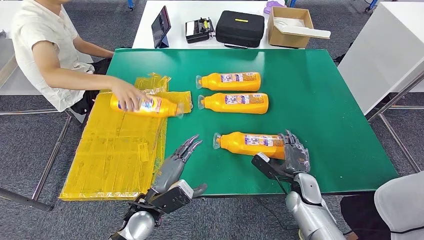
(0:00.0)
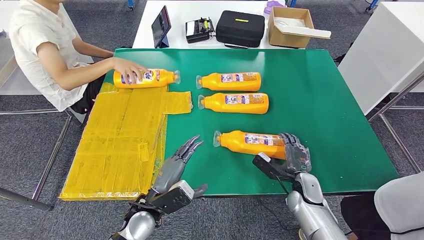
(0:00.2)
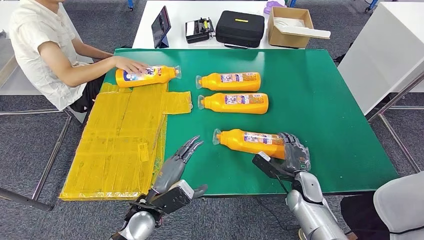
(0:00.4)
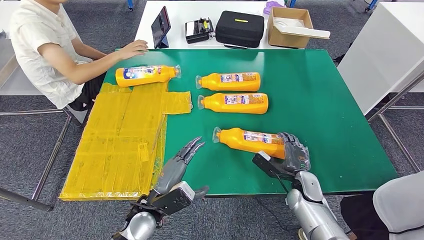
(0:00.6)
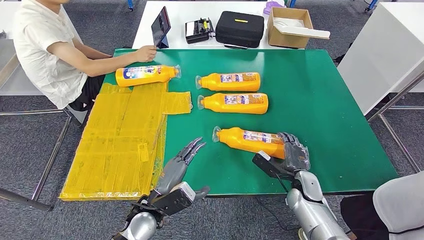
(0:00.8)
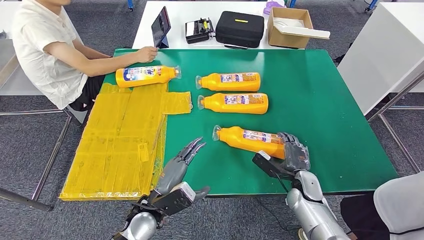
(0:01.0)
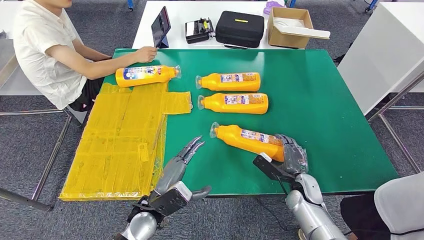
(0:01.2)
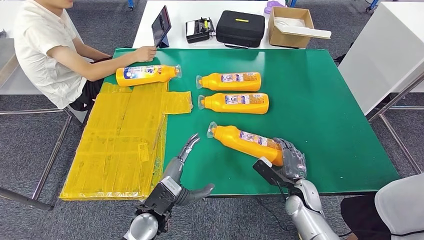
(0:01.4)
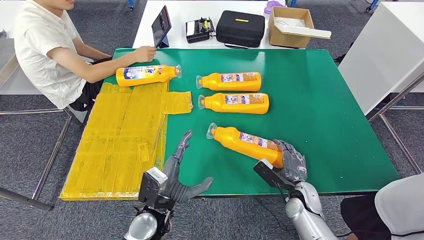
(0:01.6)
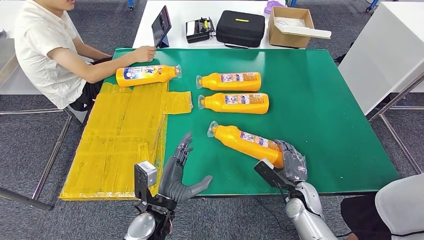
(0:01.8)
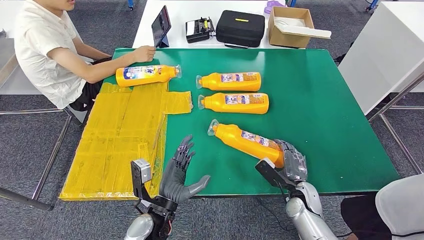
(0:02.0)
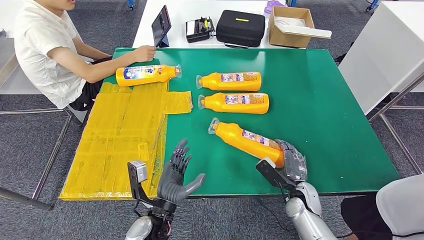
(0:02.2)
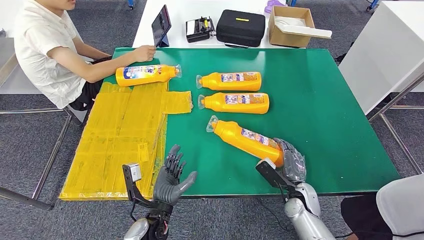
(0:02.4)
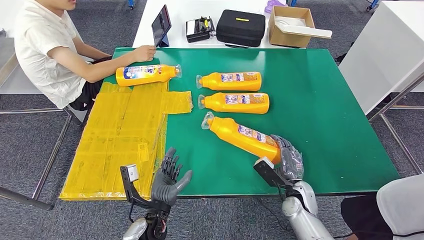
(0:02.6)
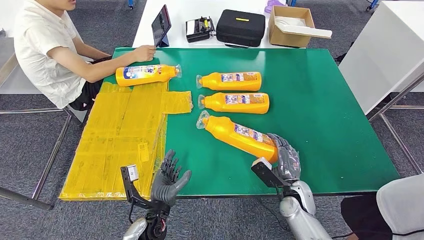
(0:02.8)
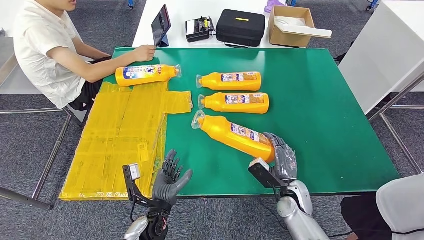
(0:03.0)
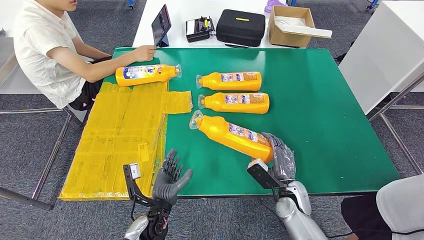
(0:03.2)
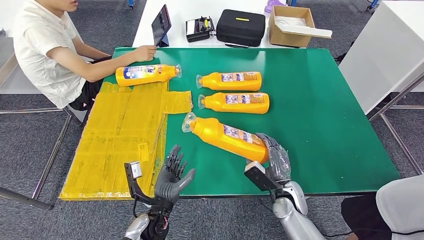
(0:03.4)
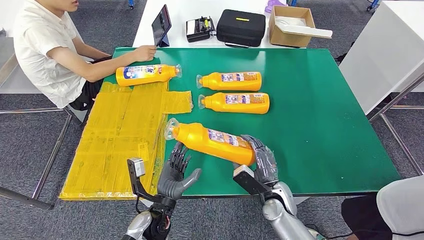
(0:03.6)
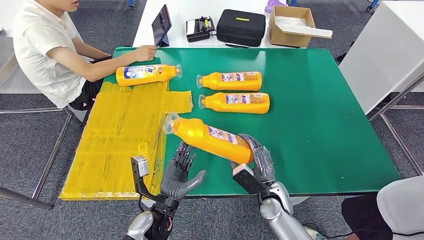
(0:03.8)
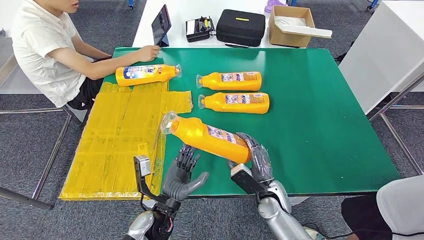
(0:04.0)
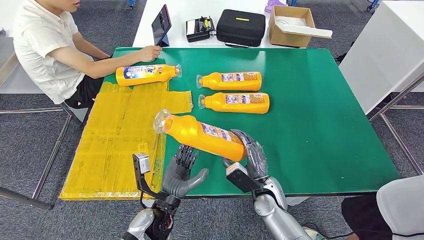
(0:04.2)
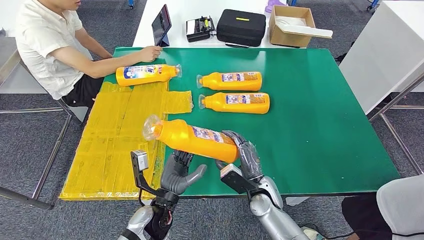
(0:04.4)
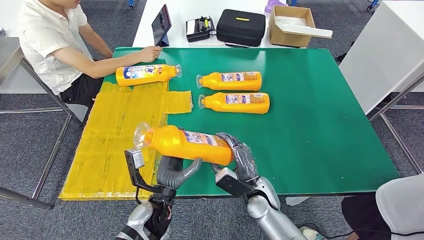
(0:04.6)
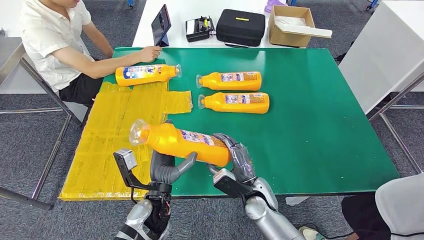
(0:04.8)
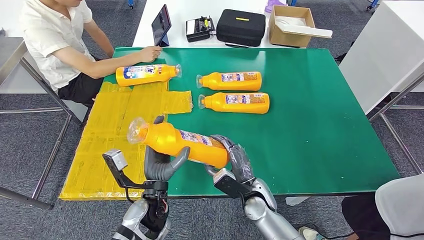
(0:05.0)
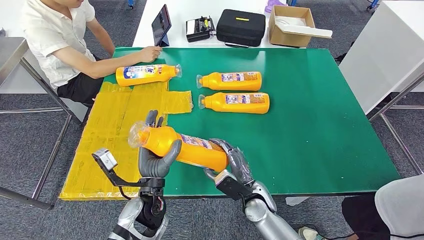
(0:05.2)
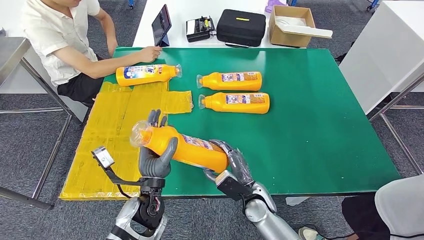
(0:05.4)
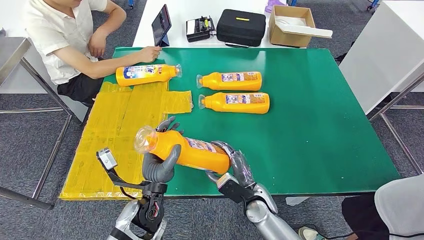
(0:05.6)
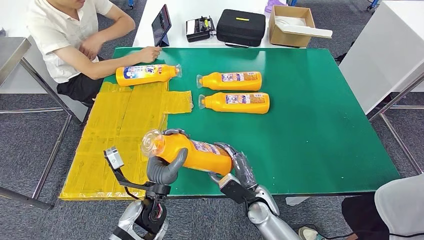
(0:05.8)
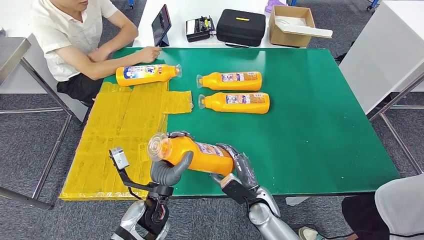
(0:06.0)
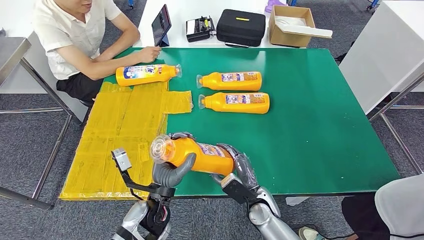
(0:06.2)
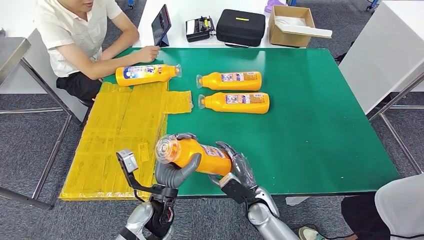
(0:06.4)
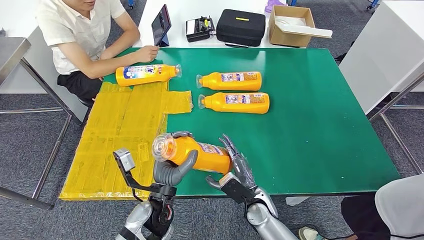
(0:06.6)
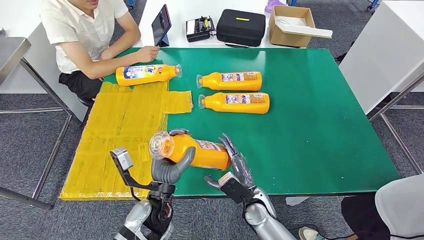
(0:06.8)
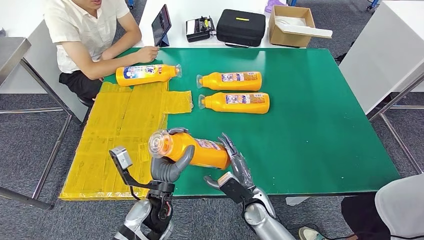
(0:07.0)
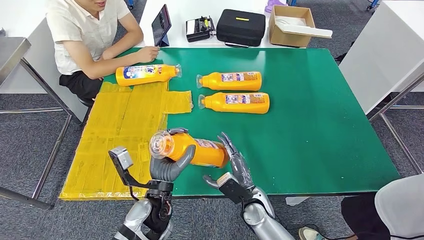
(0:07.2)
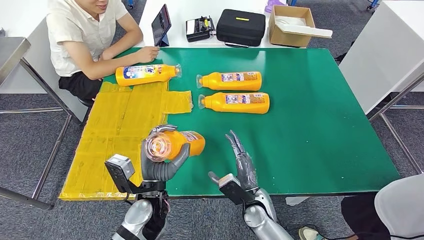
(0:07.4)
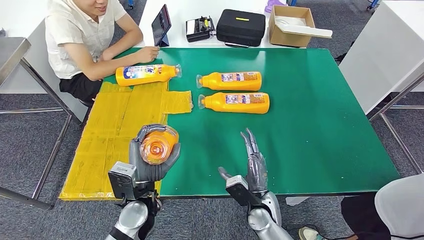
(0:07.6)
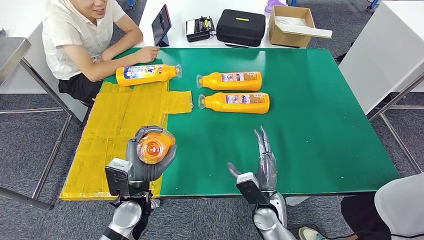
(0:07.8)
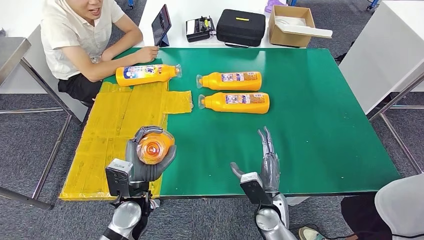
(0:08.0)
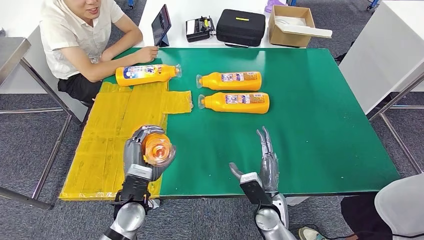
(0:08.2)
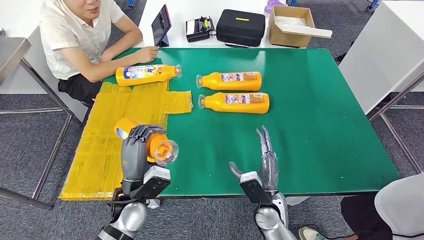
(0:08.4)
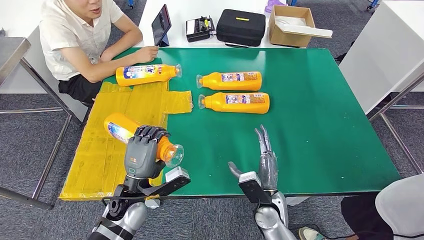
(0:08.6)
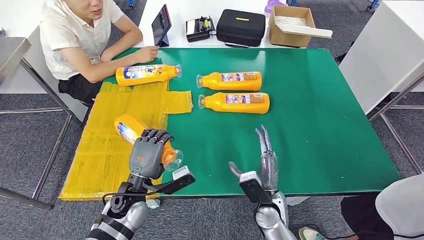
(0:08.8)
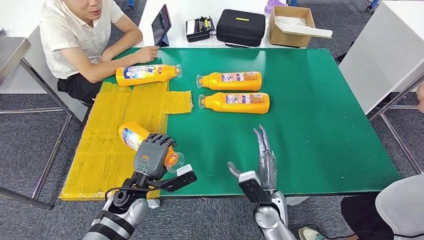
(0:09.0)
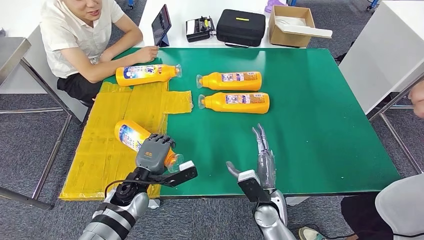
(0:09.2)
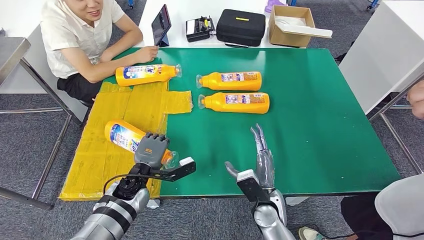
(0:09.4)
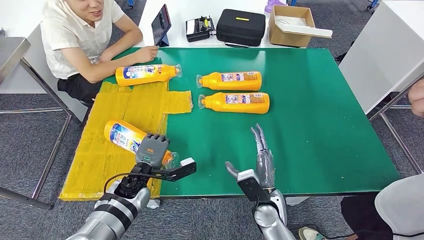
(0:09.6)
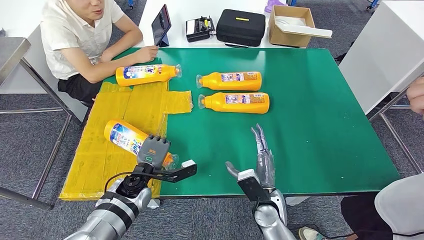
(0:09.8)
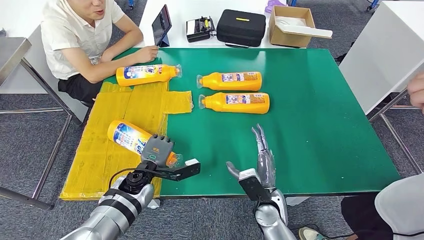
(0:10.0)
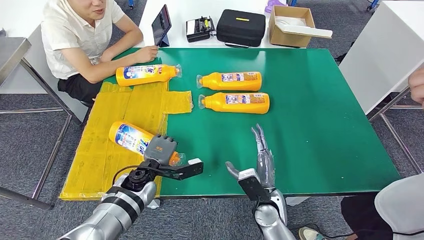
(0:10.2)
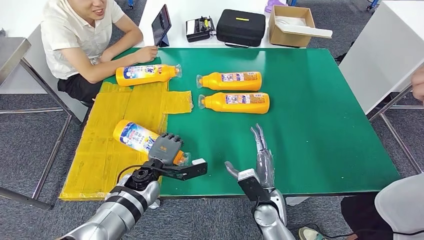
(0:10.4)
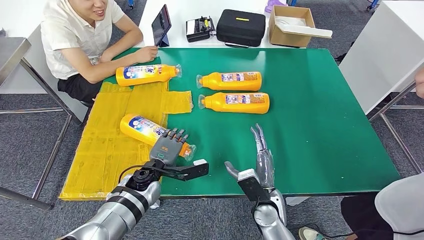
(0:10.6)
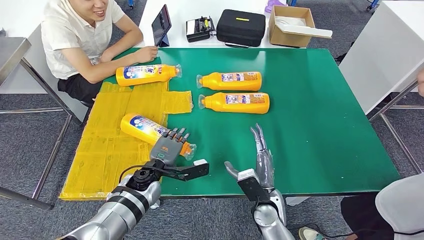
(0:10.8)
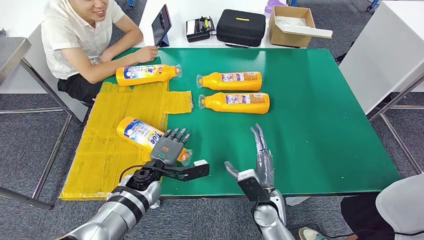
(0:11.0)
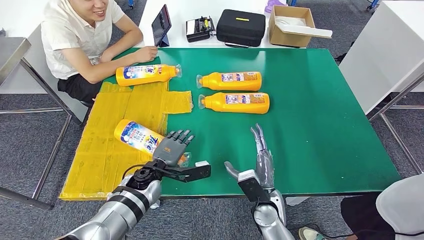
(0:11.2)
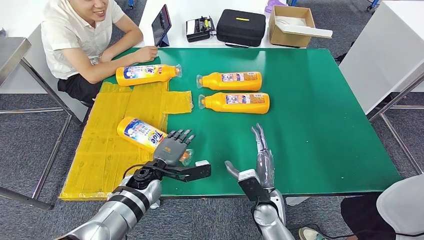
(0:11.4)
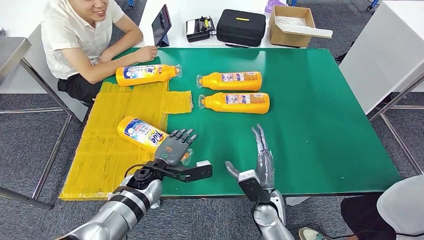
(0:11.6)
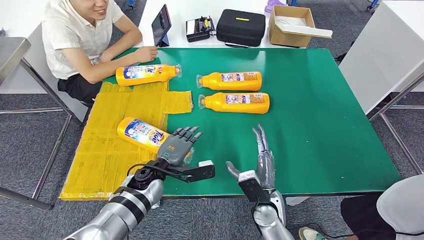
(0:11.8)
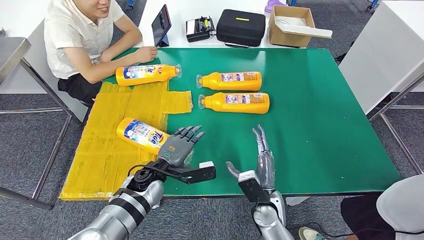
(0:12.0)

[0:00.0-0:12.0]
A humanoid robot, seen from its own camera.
Step, 0:00.0 to 0:05.0: Pick up the fast-moving consumer goods bottle from the table.
0:03.0 to 0:04.4: The right hand heads to the left, covering some 10 cm.
0:07.6 to 0:09.0: The left hand changes place by some 5 cm.
0:09.0 to 0:10.4: The left hand changes place by about 5 cm.
0:10.4 to 0:12.0: The hands move only a little.

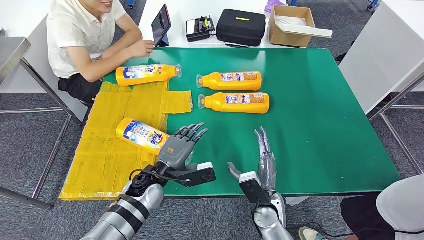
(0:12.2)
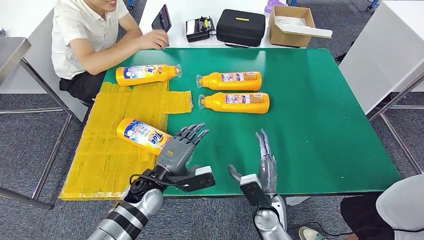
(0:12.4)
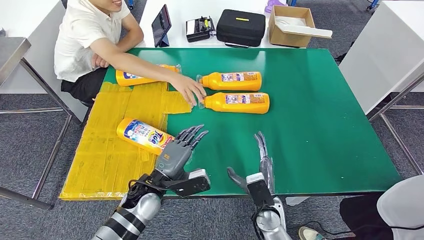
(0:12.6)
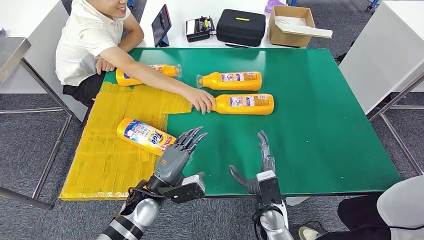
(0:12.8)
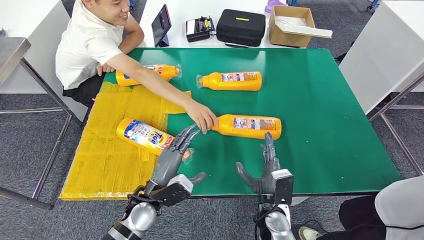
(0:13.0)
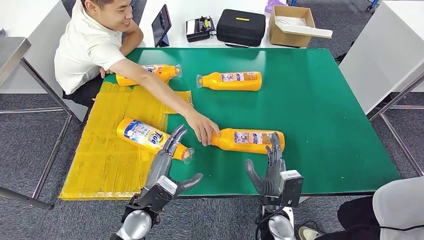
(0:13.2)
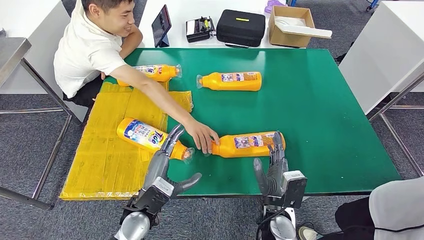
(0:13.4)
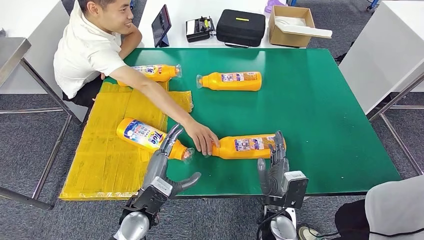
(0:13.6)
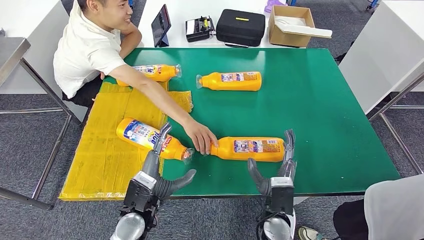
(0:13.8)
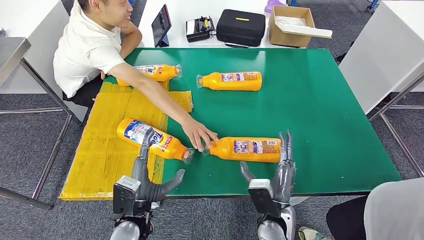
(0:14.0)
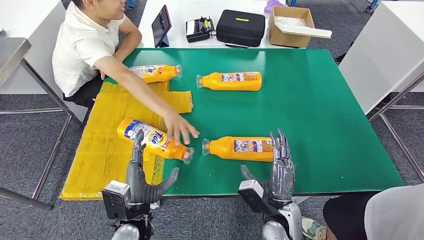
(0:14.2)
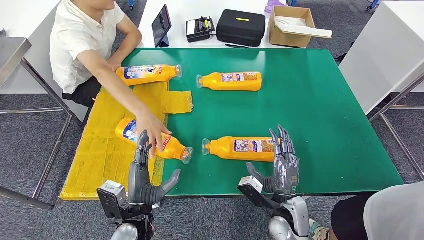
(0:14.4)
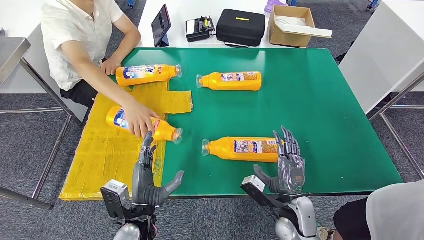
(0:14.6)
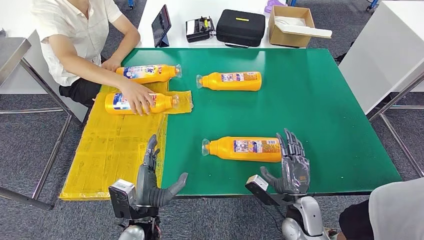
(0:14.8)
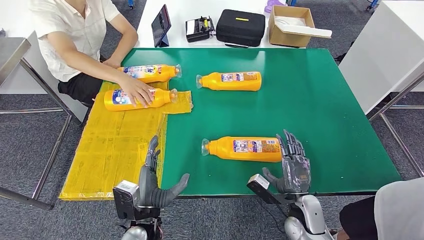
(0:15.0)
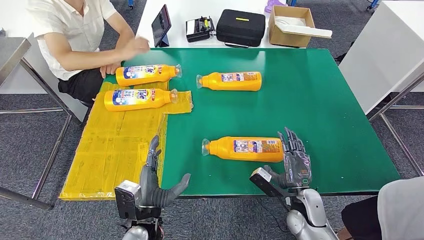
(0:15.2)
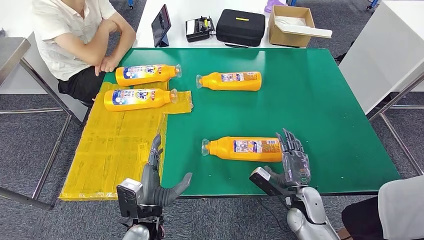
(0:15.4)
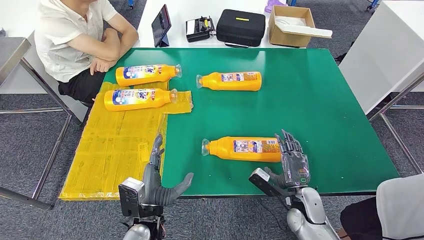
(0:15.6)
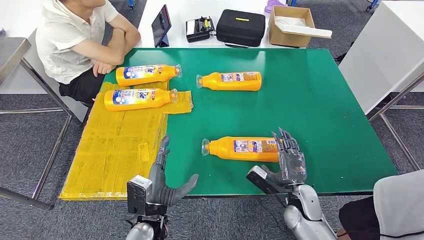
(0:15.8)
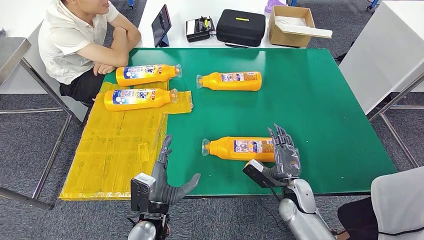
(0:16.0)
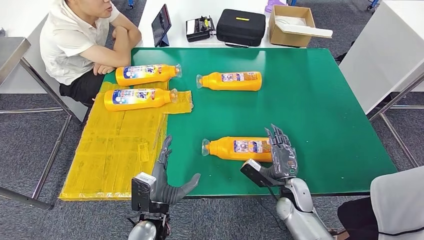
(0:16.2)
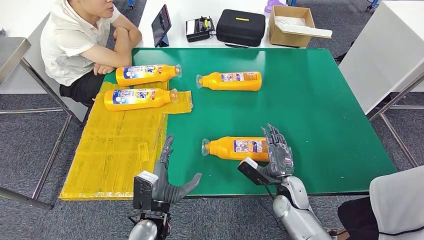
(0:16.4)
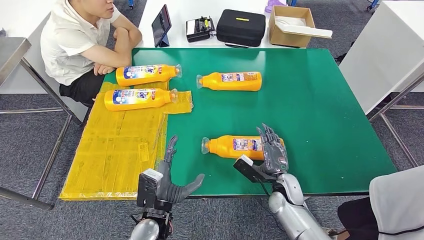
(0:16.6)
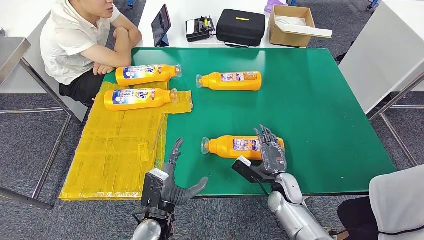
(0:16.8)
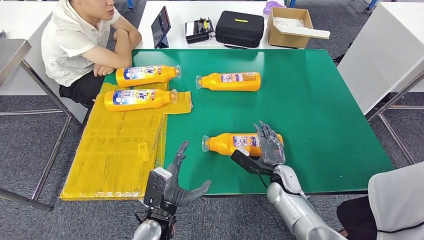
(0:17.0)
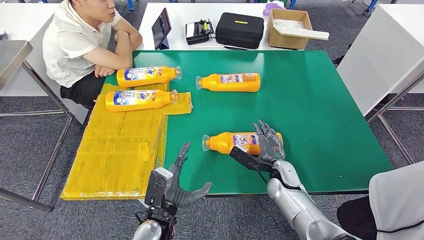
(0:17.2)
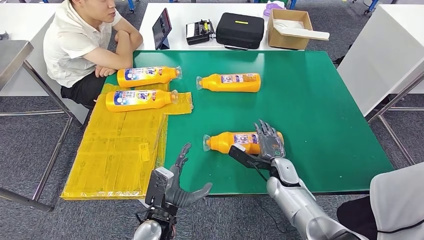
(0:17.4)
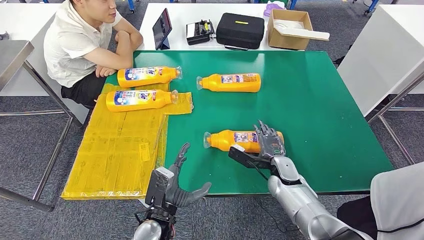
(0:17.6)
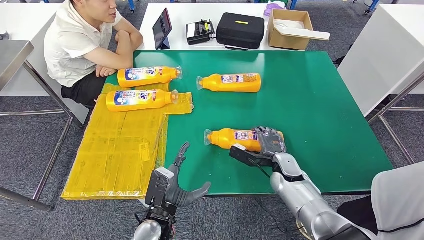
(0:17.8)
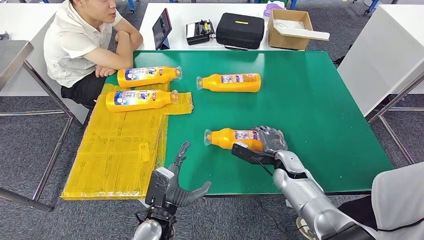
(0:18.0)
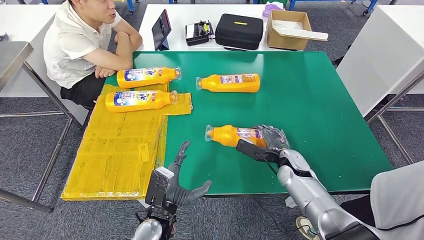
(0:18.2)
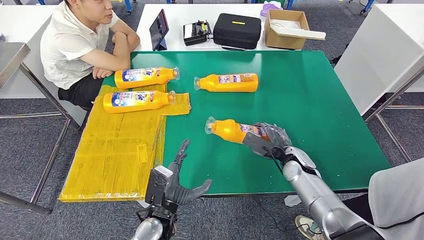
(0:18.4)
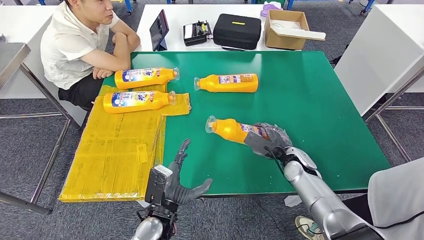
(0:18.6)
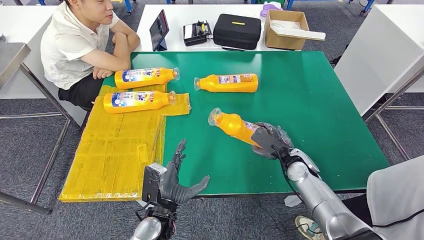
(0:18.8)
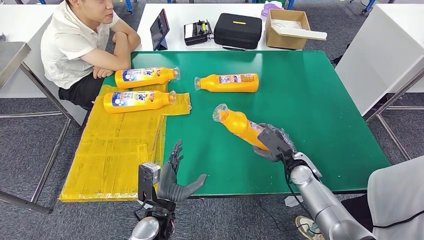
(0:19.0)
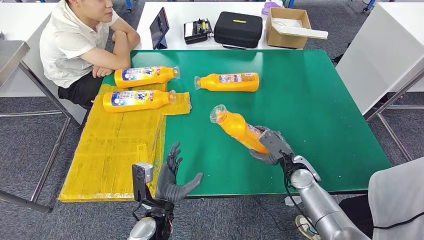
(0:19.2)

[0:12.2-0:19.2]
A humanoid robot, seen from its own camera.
0:15.0 to 0:16.4: The right hand goes some 5 cm forward.
